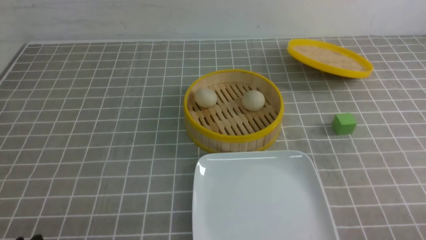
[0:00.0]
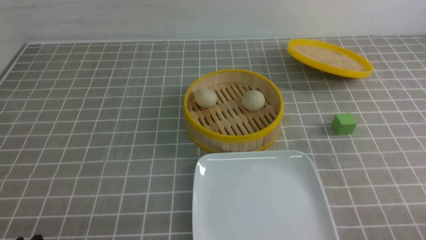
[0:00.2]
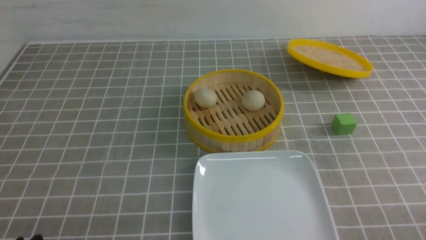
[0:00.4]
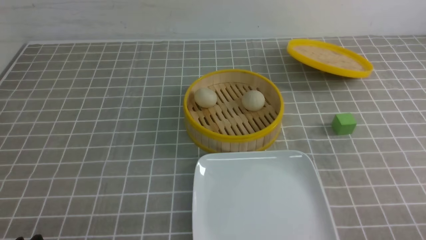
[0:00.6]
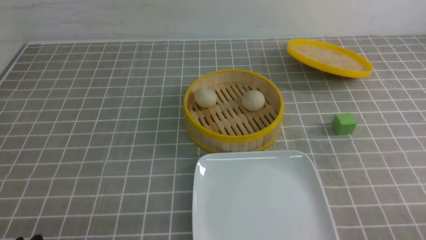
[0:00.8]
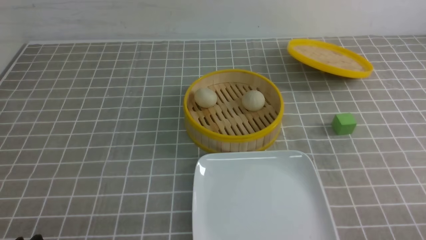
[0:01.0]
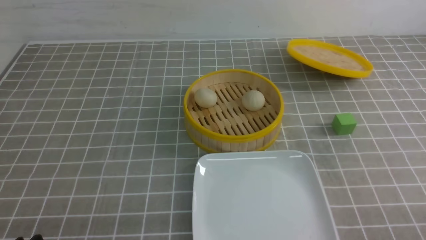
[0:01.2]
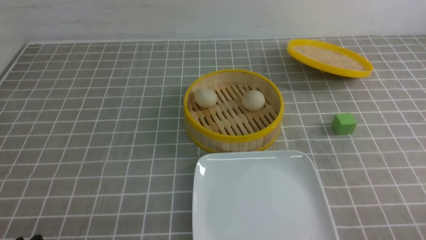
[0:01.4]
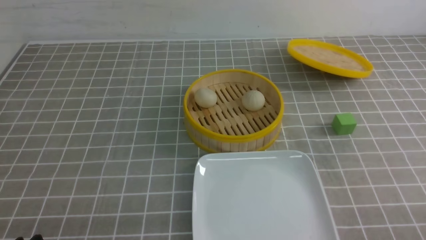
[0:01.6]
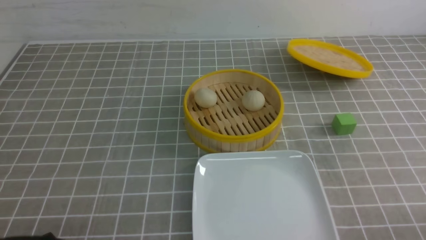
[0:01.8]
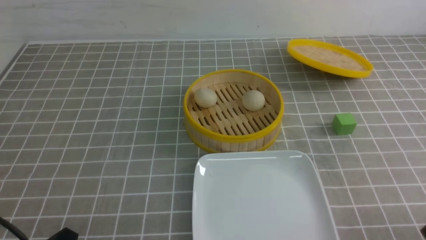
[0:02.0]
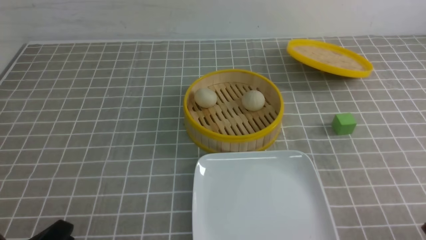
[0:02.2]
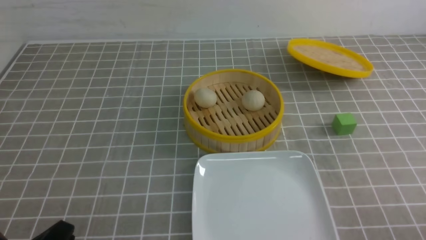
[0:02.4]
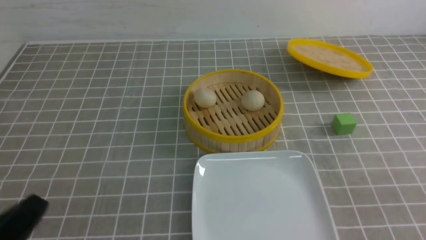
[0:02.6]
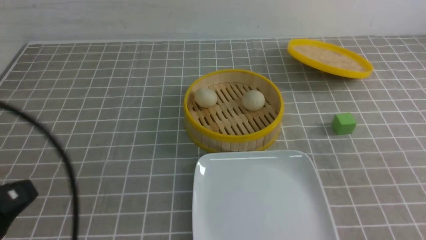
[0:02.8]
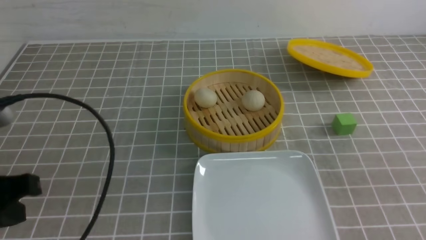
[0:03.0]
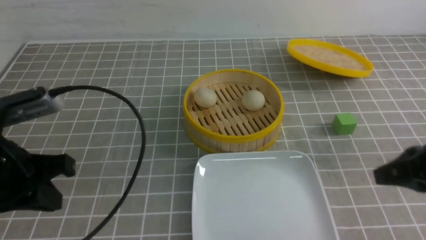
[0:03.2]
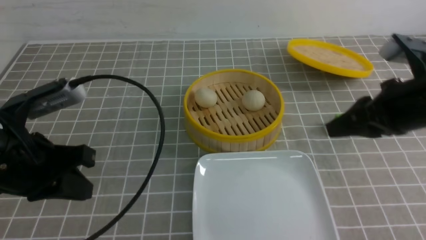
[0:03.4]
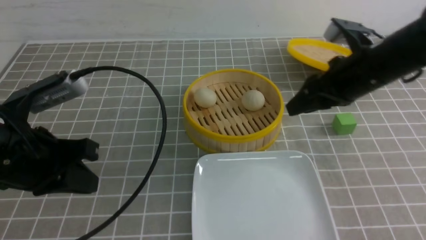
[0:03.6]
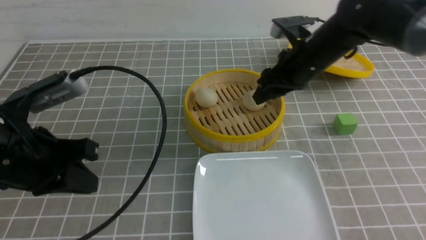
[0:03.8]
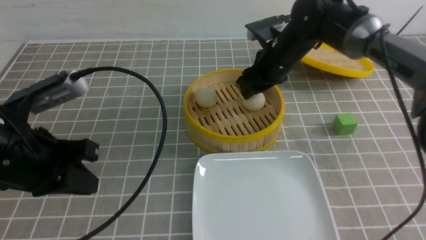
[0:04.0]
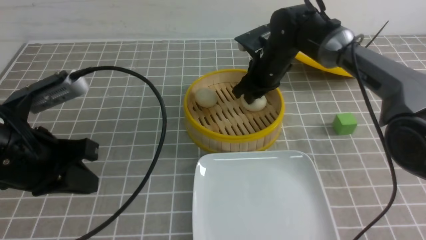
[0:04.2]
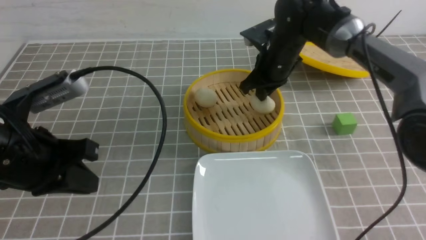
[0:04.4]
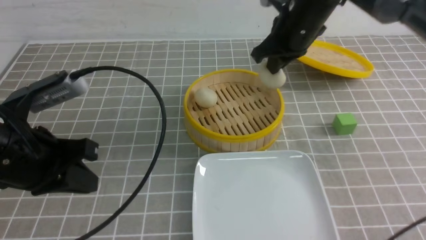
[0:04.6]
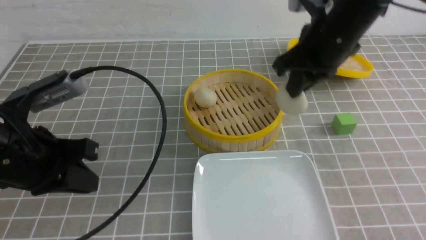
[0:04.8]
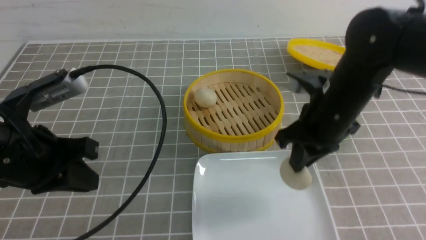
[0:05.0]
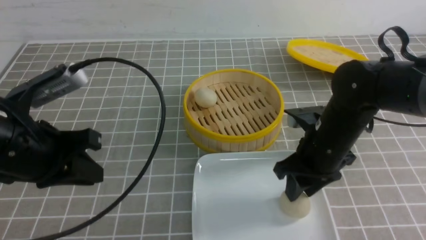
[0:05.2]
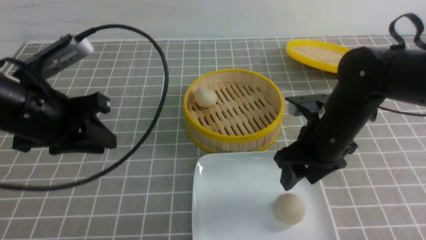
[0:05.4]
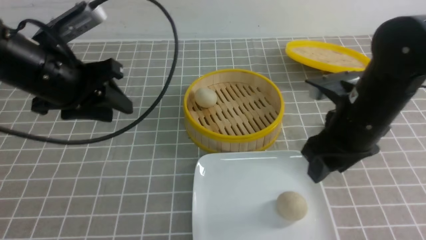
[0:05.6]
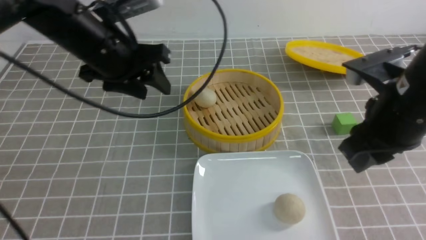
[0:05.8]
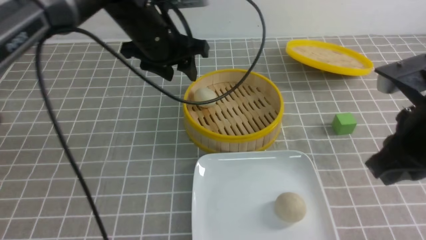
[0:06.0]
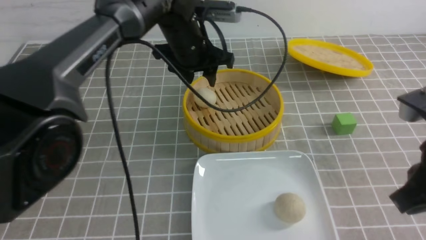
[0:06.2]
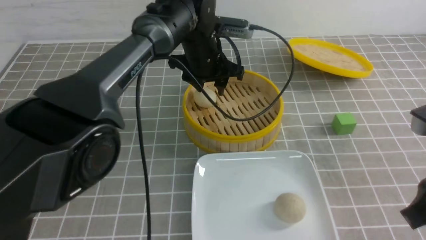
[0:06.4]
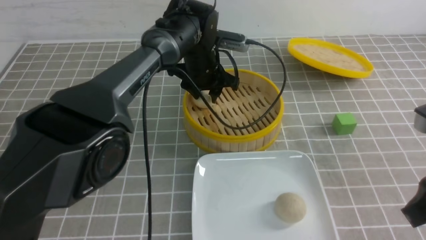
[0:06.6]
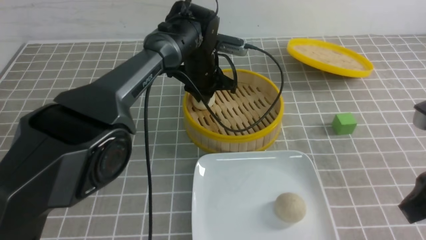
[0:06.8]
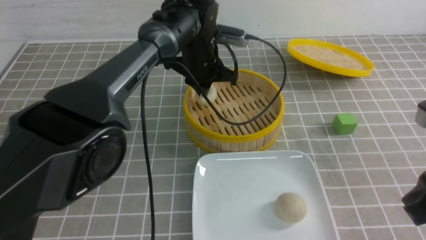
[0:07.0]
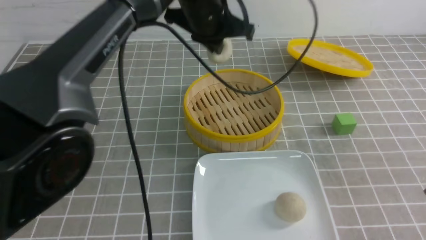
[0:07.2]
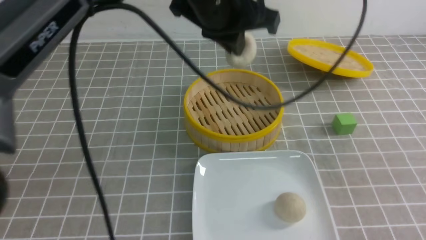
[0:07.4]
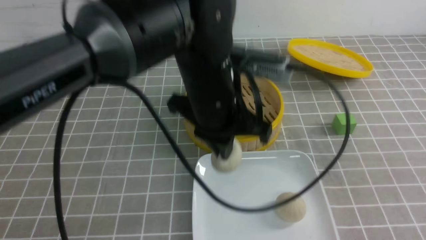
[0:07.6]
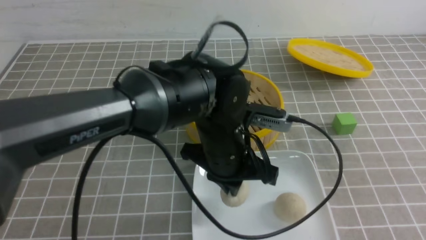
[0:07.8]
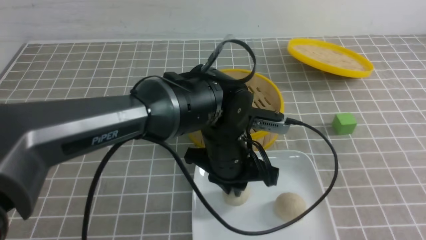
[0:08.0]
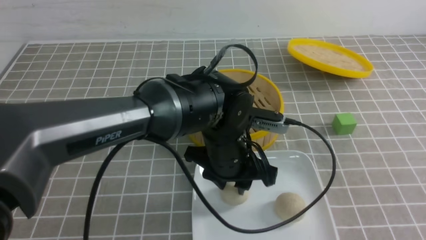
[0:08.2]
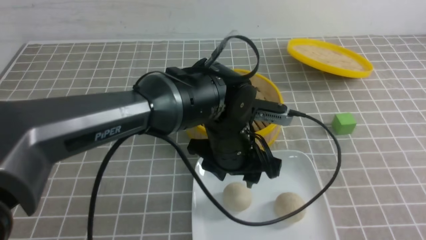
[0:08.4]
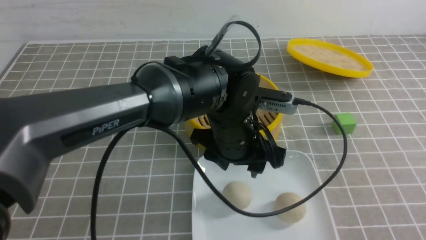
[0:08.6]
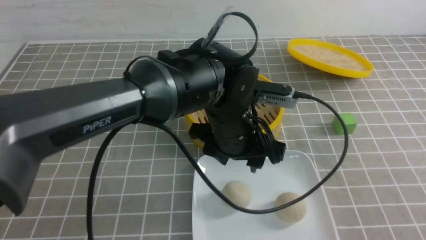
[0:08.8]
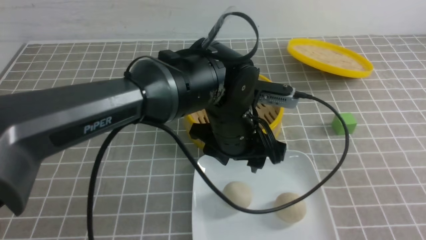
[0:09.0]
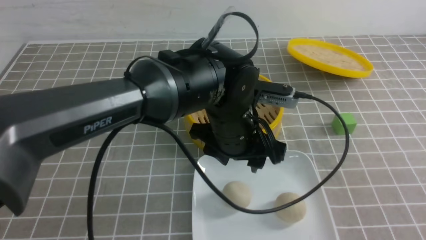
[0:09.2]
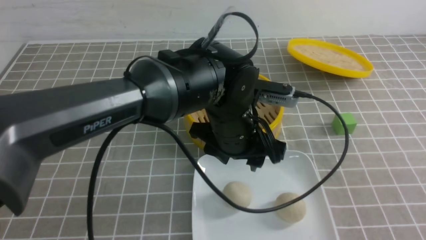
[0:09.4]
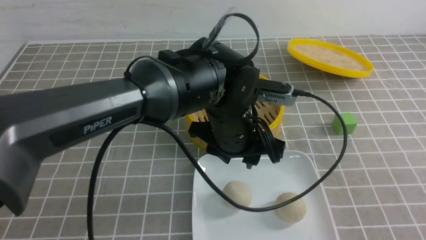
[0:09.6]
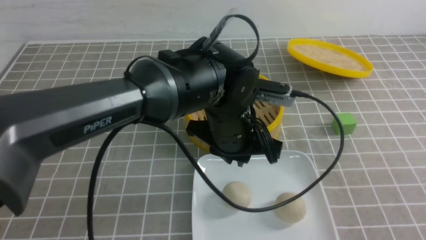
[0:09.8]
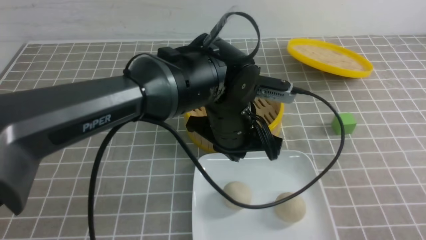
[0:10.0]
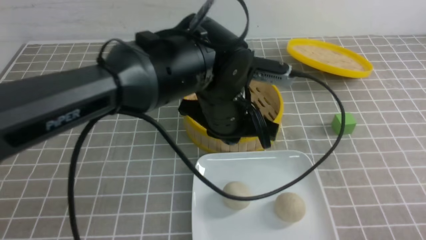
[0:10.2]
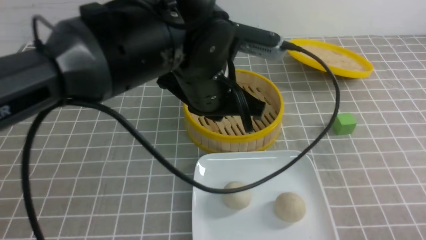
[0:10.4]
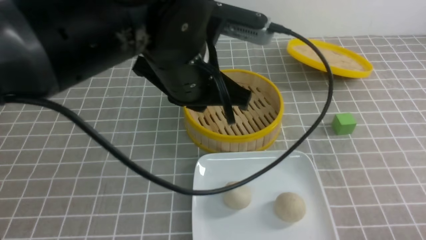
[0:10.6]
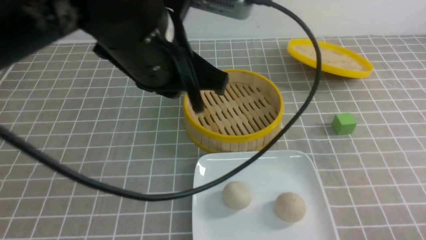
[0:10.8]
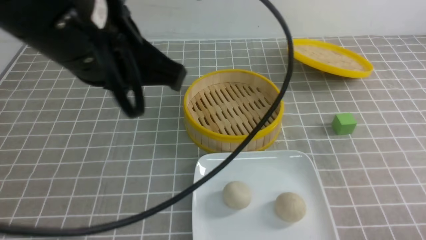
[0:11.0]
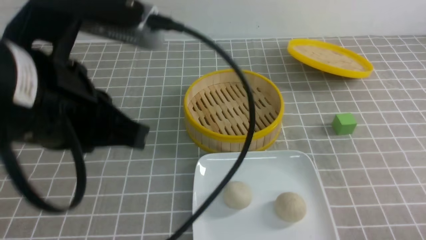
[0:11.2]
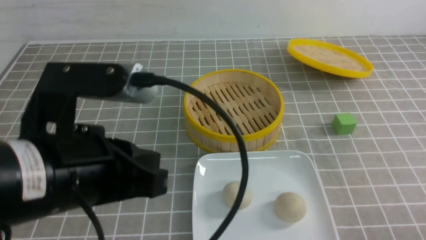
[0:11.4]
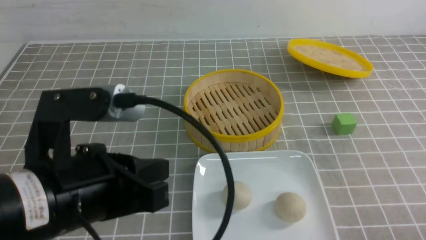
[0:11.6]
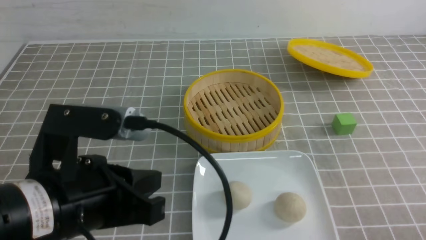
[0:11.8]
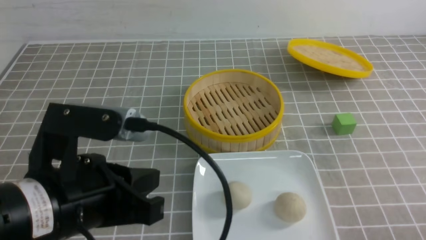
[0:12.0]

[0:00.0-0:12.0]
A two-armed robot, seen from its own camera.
Step, 0:00.0 to 0:04.4: use the right arm to grab the steamed stuffed bun that is closest to it.
Step, 0:04.6 to 0:05.2: use the right arm to put the steamed stuffed bun into the plate.
Step, 0:05.4 to 0:07.0: use the left arm to grab the steamed stuffed bun that is closest to it.
Step, 0:07.2 to 0:08.2: use the left arm to put the steamed stuffed bun into the plate.
0:01.6 to 0:03.0: The left gripper heads upward and forward, covering about 15 cm, and closes its fingers.
0:03.0 to 0:04.4: The left gripper moves forward, approximately 5 cm. Meanwhile the right gripper heads forward and to the left, covering about 35 cm, and opens, then closes once more.
0:04.4 to 0:06.0: The left gripper goes some 25 cm forward and to the right, and opens its fingers. Meanwhile the right gripper travels backward and to the right by about 25 cm, and opens and closes again.
0:06.0 to 0:07.6: The grippers both shift backward and to the right by about 15 cm. The left gripper closes up.
0:07.6 to 0:09.0: The left gripper heads downward, covering some 5 cm, and opens up; the right gripper goes some 10 cm backward and downward.
0:09.0 to 0:10.4: The left gripper shifts about 10 cm upward, and closes up. Meanwhile the right gripper heads downward, covering approximately 10 cm.
0:10.4 to 0:12.0: The left gripper travels backward and to the left by approximately 20 cm.

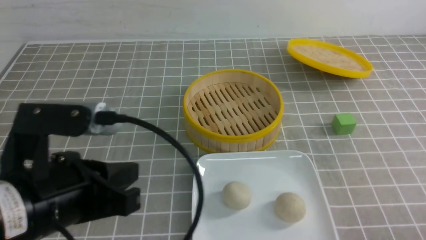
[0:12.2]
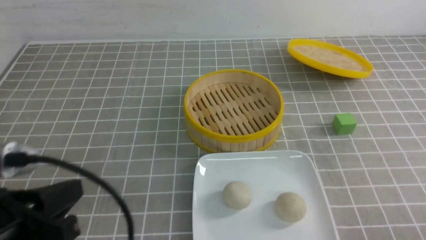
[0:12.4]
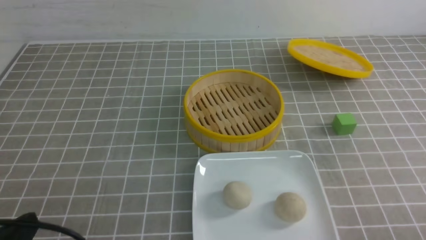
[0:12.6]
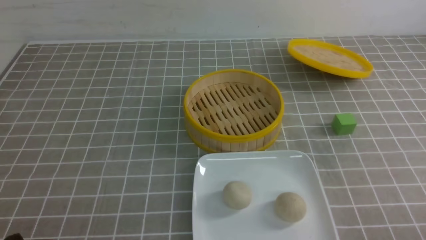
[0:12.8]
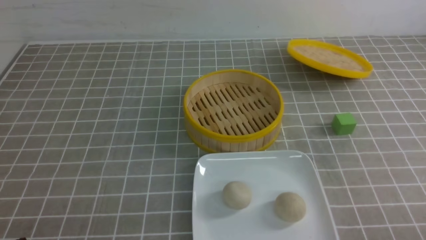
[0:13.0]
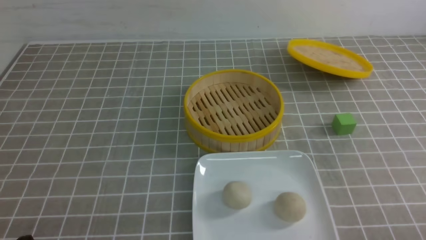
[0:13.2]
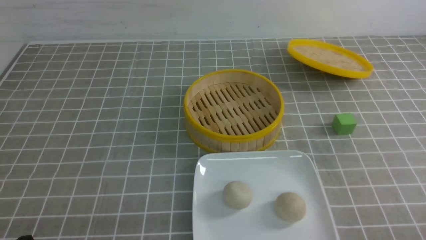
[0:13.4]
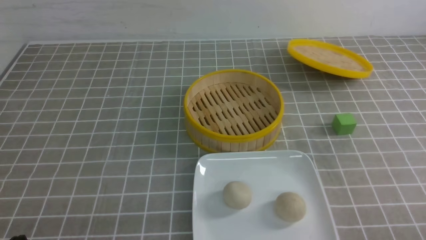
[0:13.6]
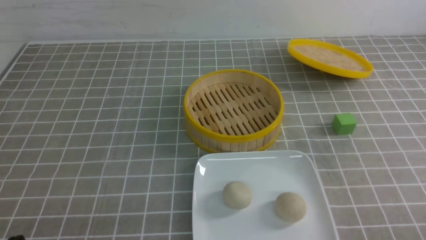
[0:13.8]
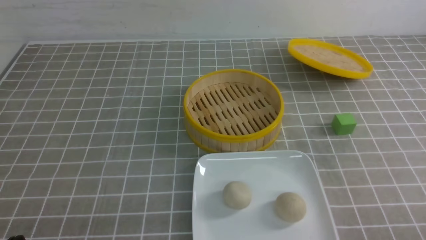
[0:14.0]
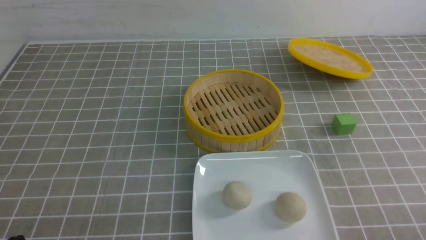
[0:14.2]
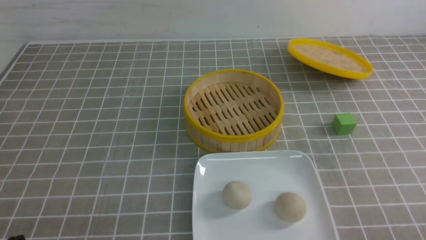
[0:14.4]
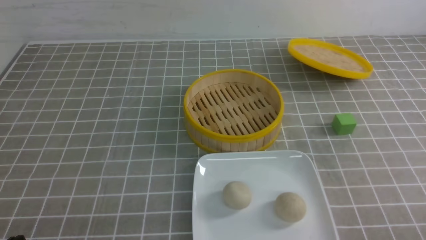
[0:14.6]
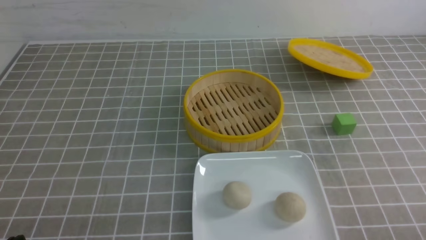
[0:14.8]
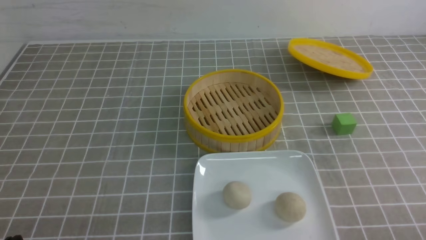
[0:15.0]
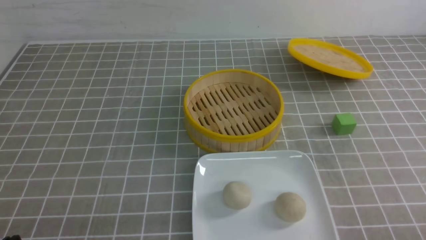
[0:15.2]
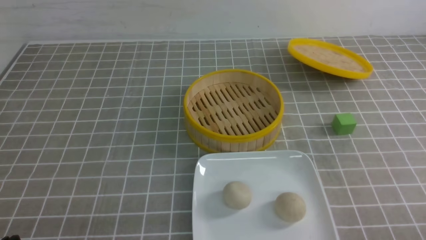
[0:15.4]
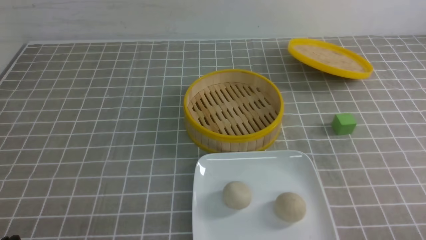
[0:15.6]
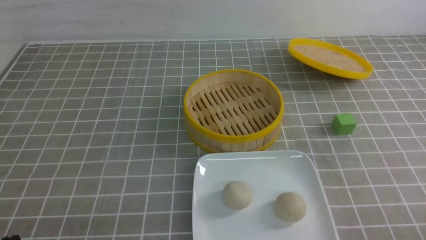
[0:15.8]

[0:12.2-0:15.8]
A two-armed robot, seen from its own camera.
0:12.2 to 0:14.0: The left gripper moves downward, to the left and backward, roughly 15 cm.
0:14.0 to 0:15.8: The two grippers keep their place.
